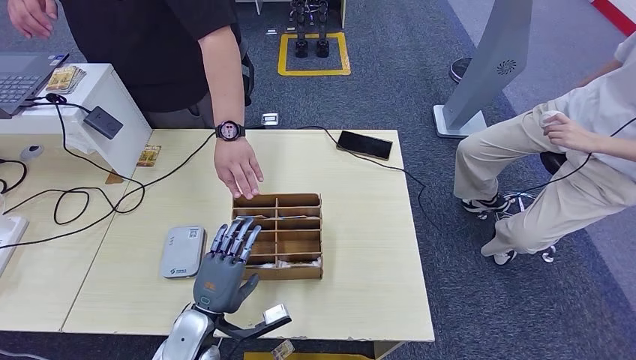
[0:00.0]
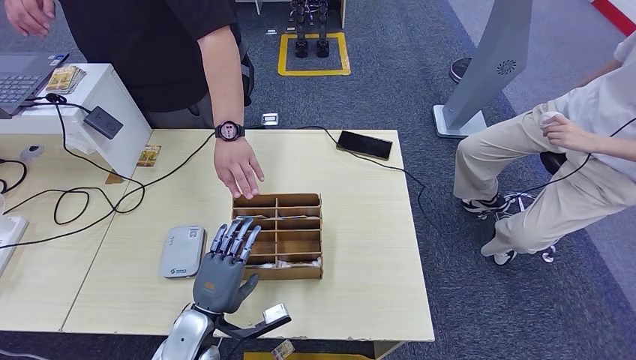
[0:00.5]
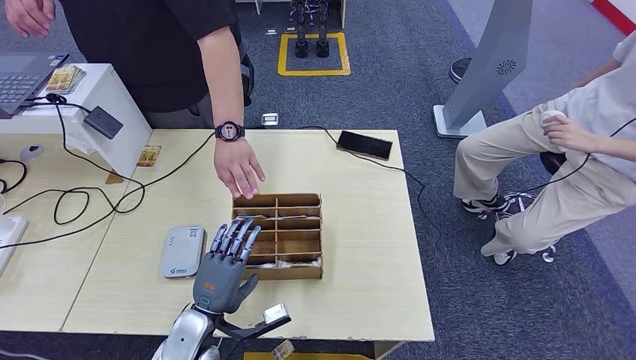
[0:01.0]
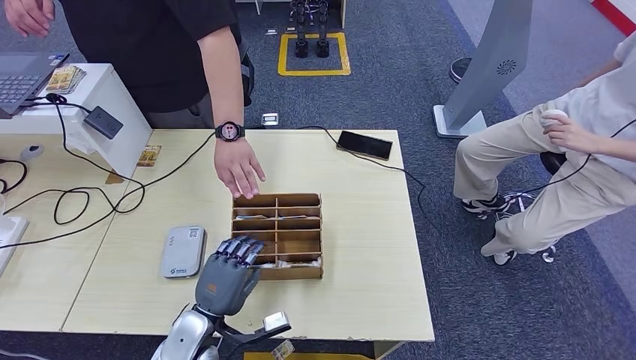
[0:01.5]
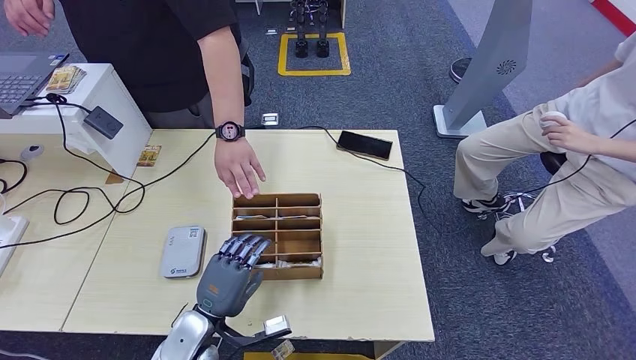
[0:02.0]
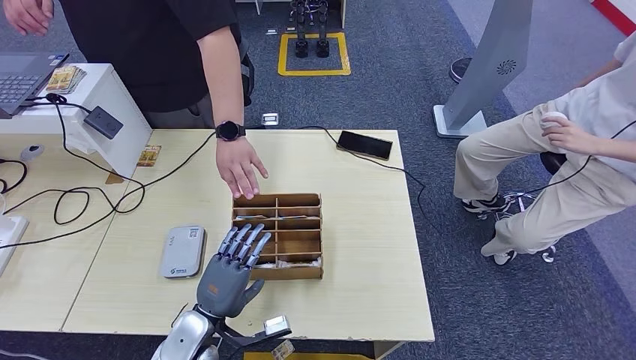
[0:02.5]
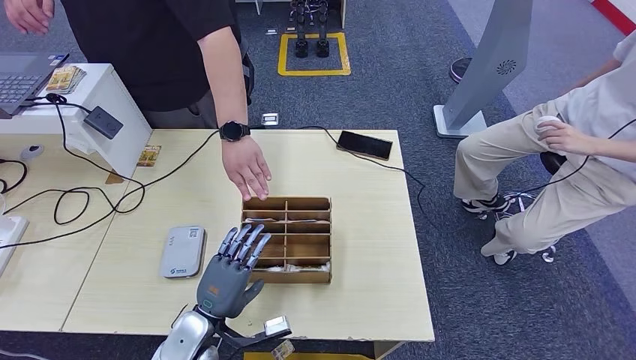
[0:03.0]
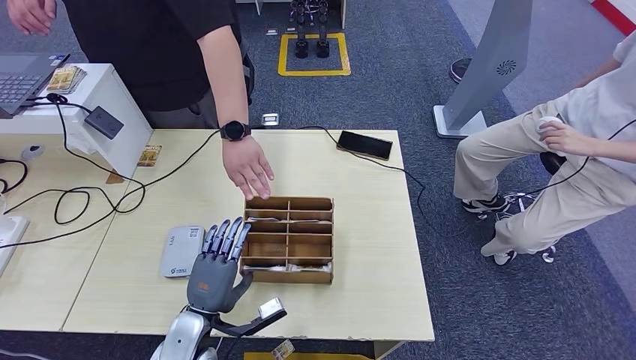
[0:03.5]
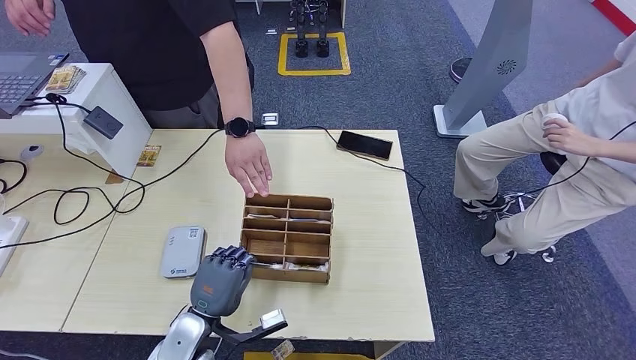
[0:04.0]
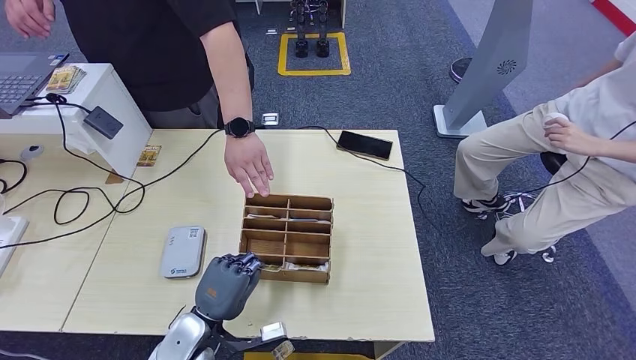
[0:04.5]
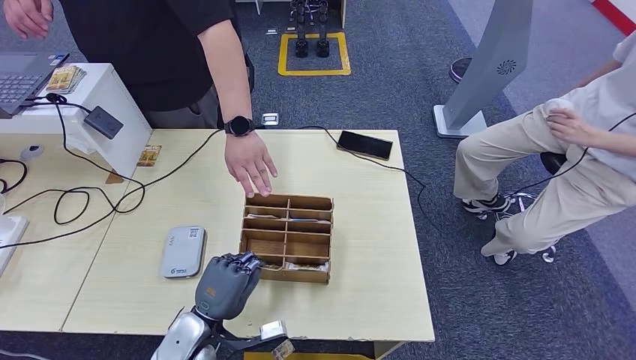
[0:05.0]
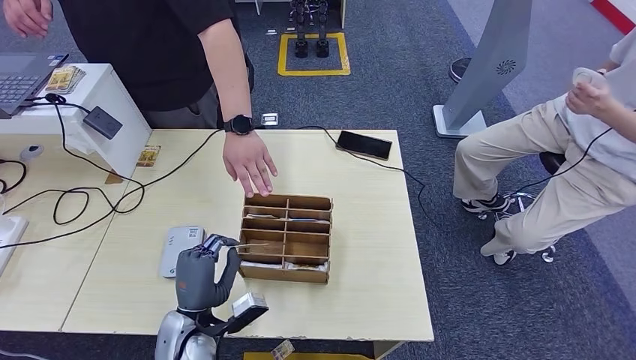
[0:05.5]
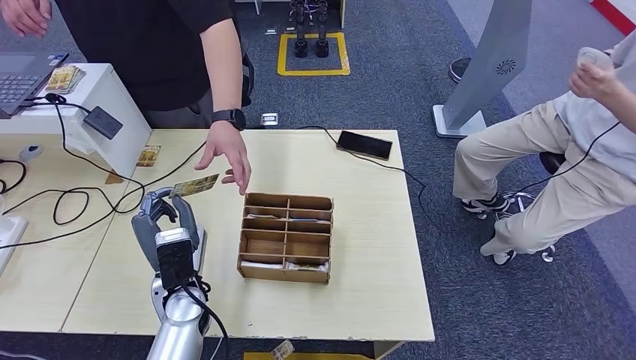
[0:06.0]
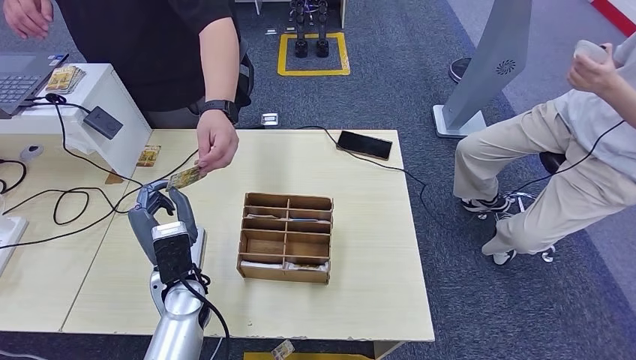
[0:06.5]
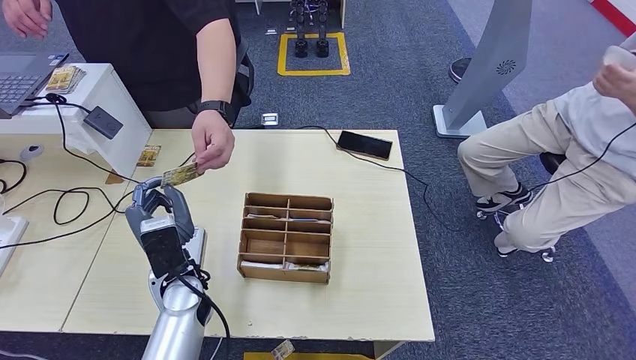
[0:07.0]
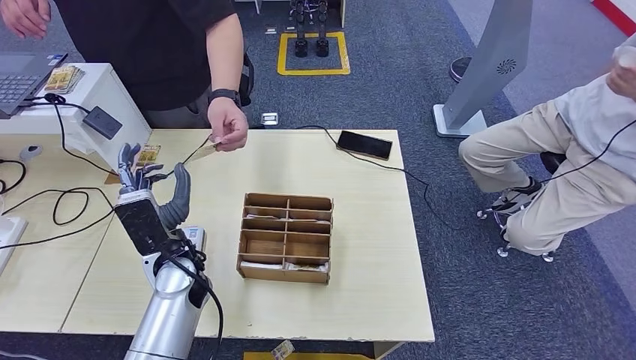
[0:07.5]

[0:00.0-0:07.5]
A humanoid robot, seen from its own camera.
Step, 0:00.0 to 0:05.5: Pick up the room key from the key card box.
Step, 0:06.0 to 0:07.5: Hand the room key to the person.
0:00.0 to 0:04.0: The hands move only a little.
0:05.5 to 0:07.5: The left hand shifts roughly 15 cm upward and forward.

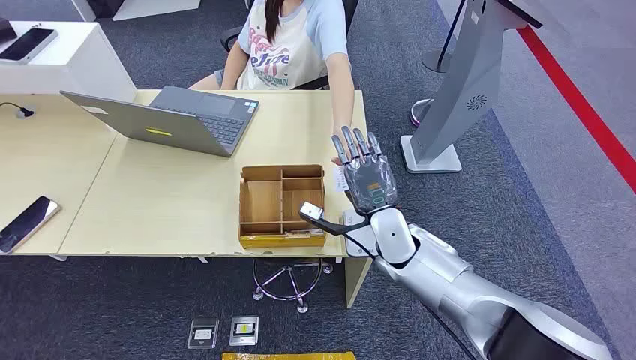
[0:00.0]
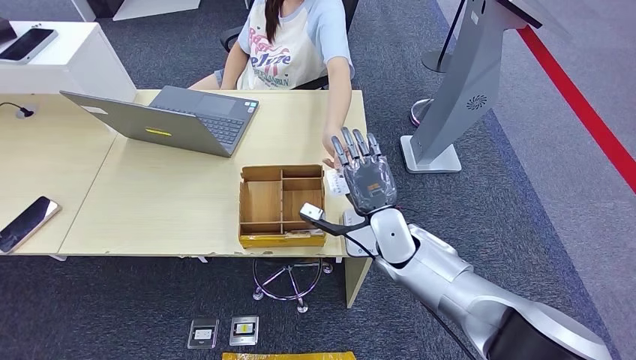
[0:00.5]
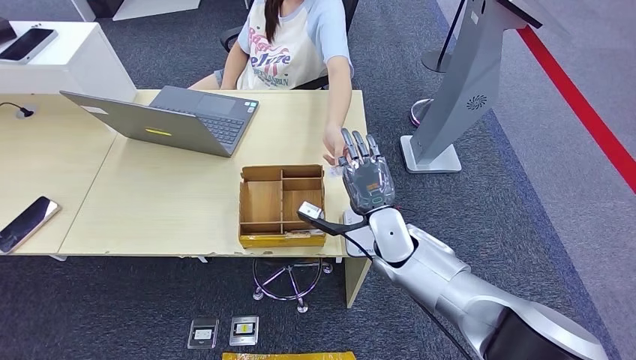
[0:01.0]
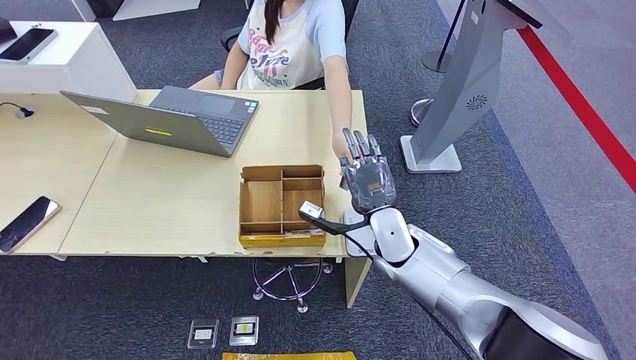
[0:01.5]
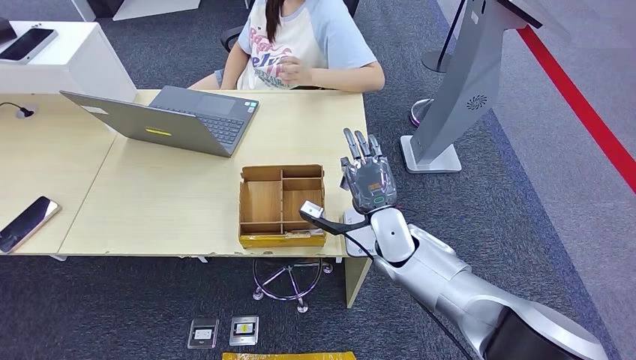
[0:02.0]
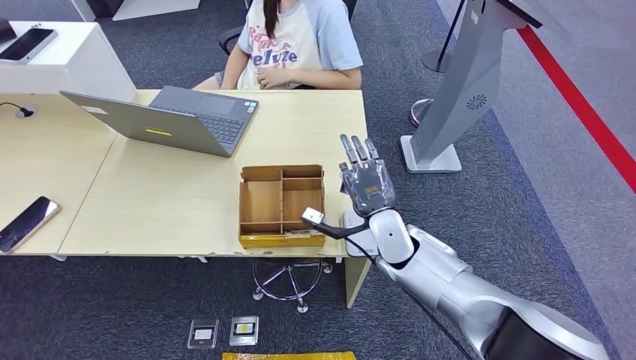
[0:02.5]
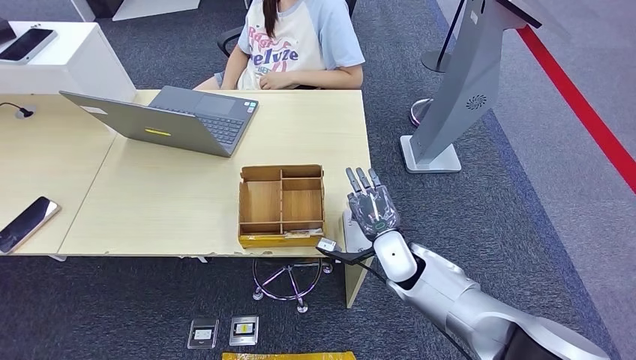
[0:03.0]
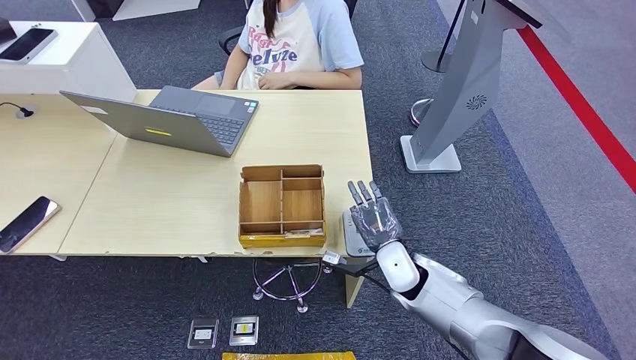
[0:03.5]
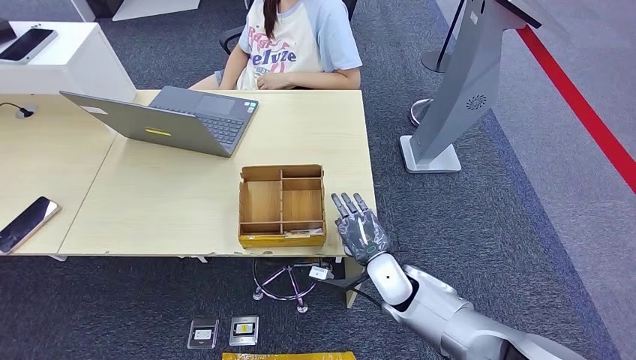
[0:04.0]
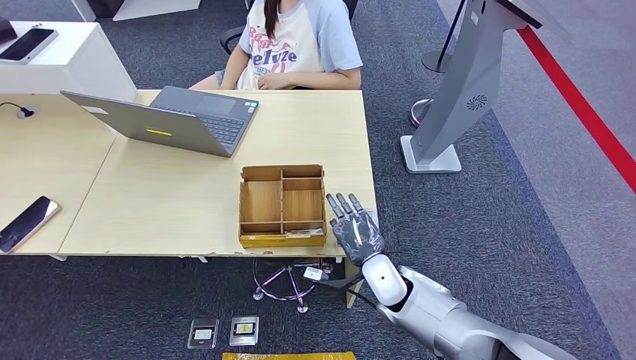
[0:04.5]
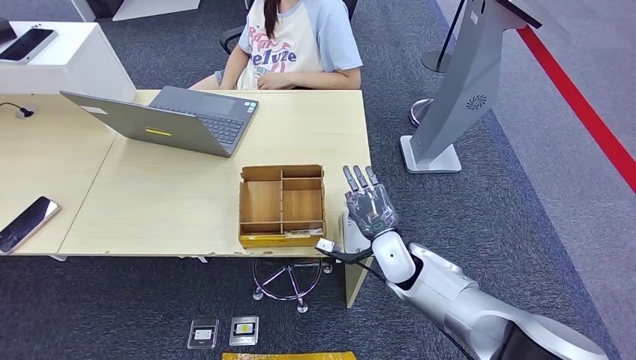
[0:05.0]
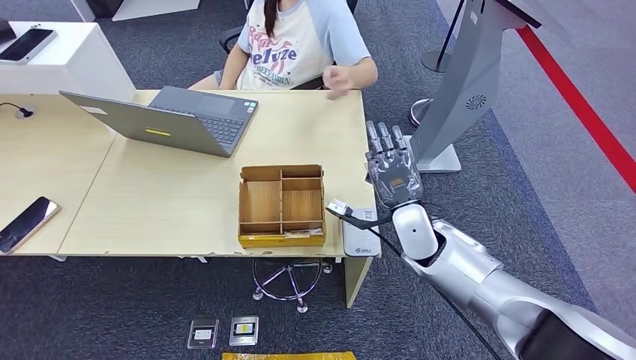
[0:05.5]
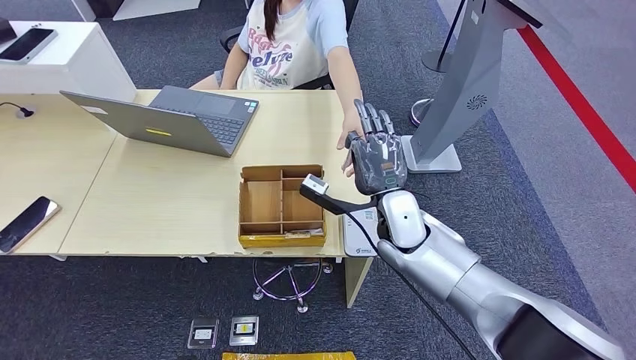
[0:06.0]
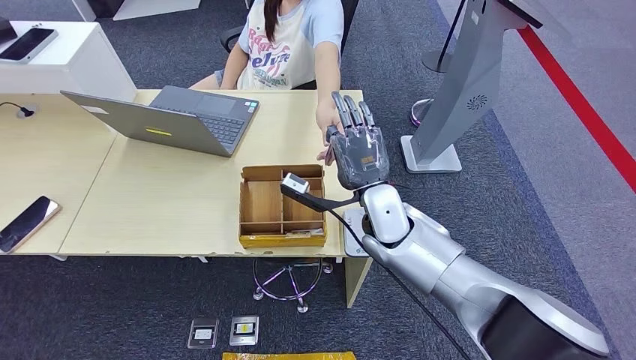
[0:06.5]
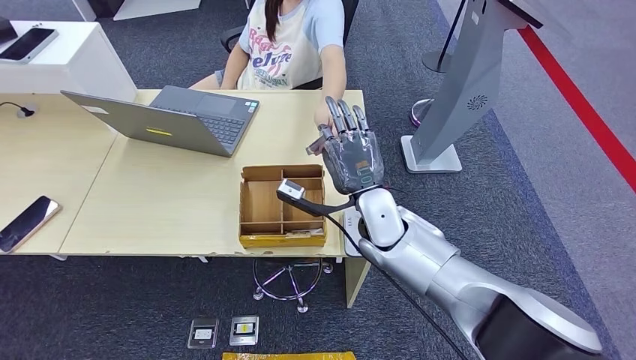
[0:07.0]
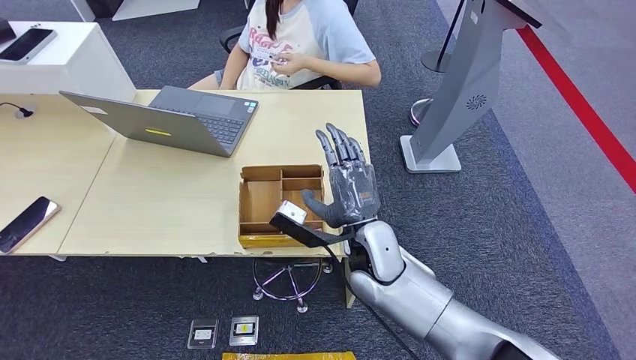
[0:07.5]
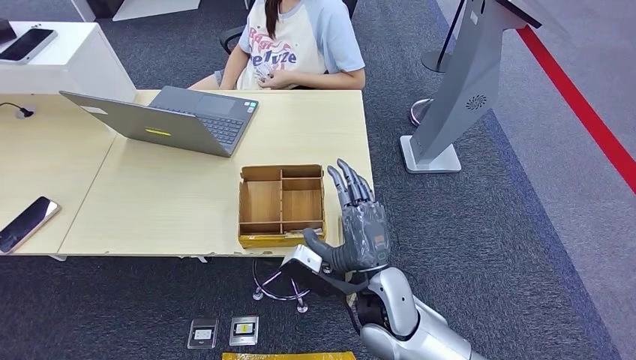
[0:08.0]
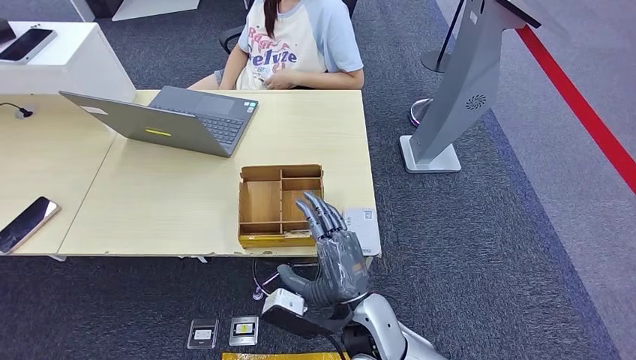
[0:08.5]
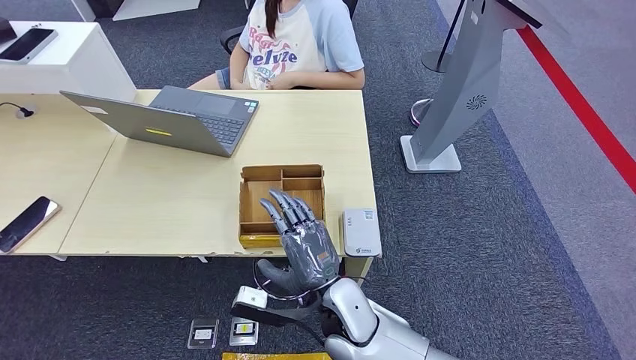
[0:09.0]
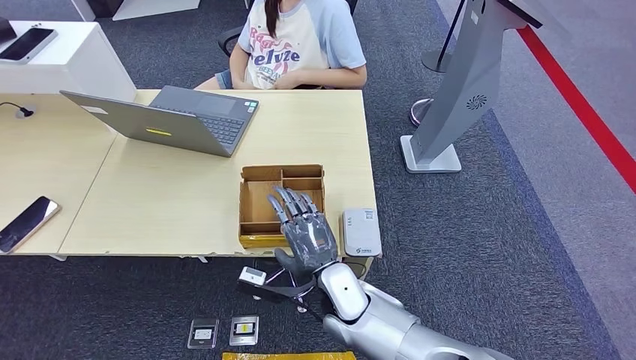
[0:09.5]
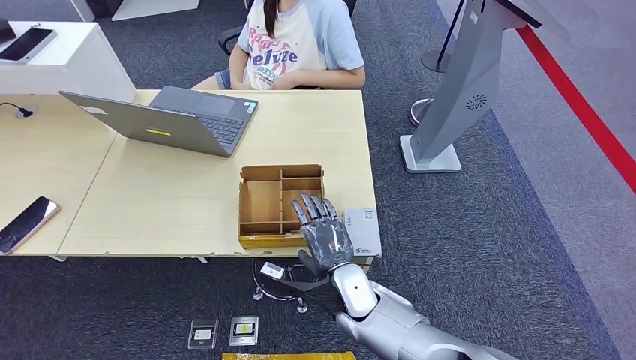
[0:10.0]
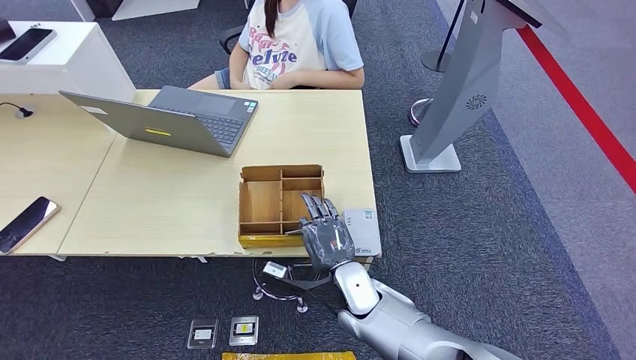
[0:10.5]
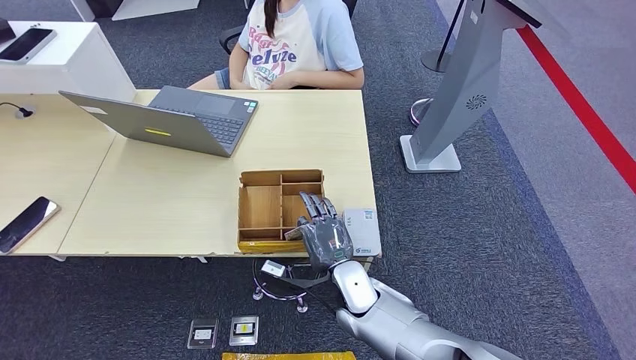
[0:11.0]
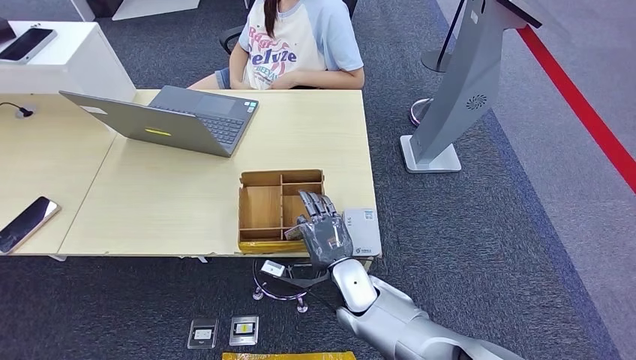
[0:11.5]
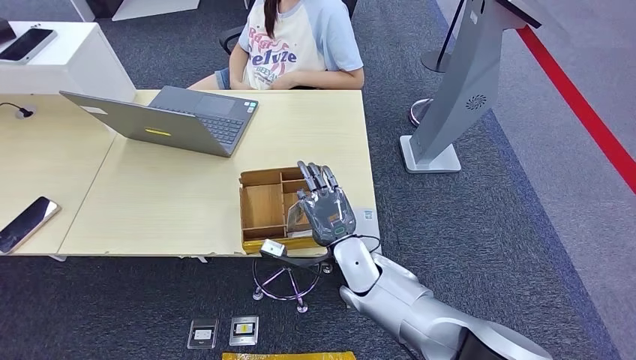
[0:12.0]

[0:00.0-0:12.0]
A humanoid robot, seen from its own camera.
Step, 0:00.0 to 0:02.0: Take the ID card from the person's hand.
Step, 0:02.5 to 0:05.5: Place the ID card on the card reader.
Step, 0:06.0 to 0:07.0: Hand the ID card to the person.
0:02.0 to 0:04.0: The right hand moves downward and backward, approximately 10 cm.
0:04.0 to 0:06.0: The right hand heads upward and forward, covering some 15 cm.
0:06.0 to 0:08.0: The right hand shifts approximately 15 cm backward.
0:08.0 to 0:10.0: The right hand goes approximately 10 cm downward.
0:10.0 to 0:12.0: The right hand changes place by roughly 5 cm.
